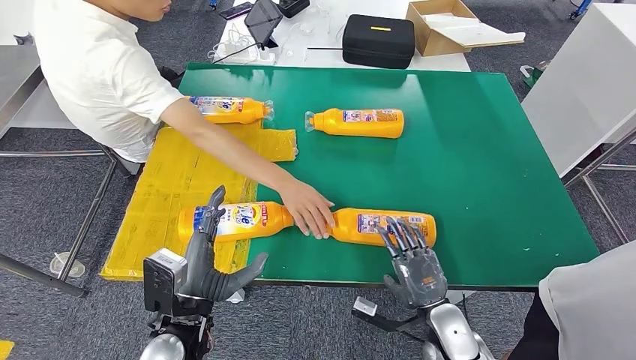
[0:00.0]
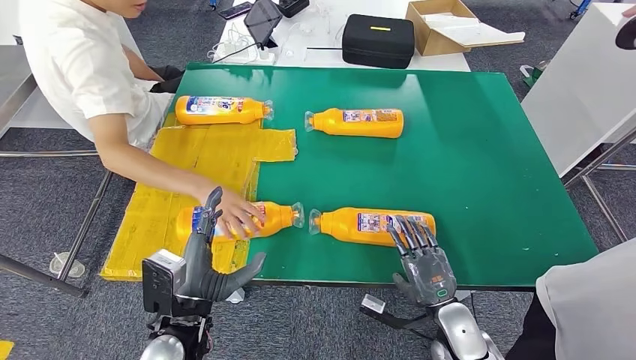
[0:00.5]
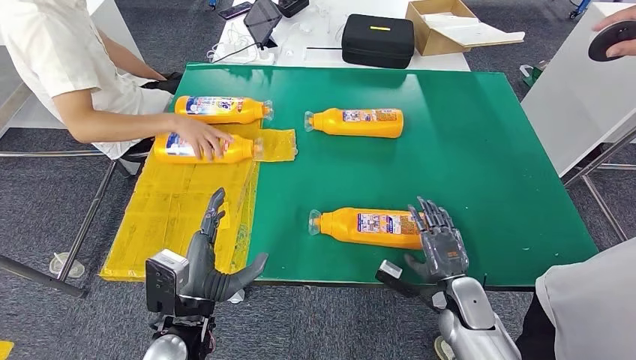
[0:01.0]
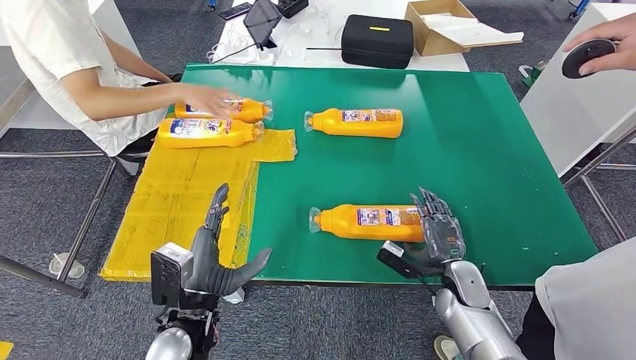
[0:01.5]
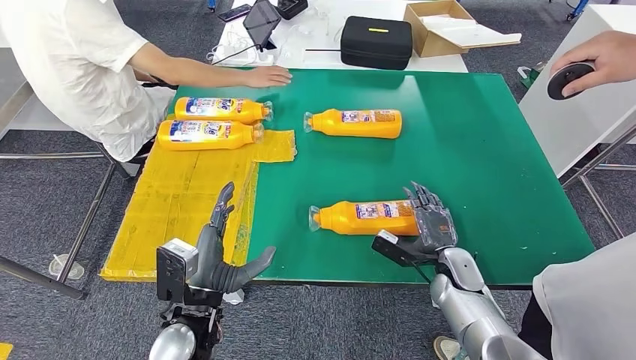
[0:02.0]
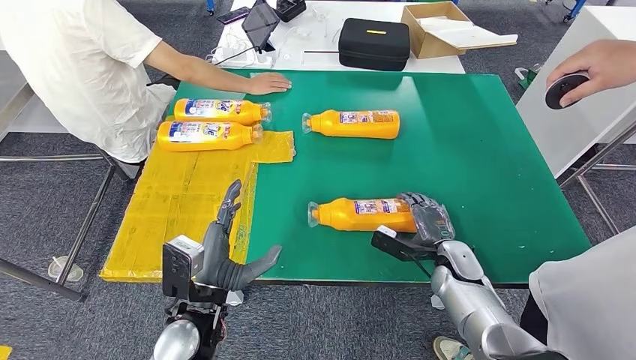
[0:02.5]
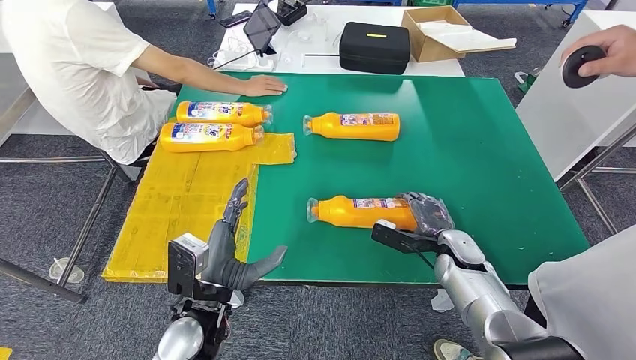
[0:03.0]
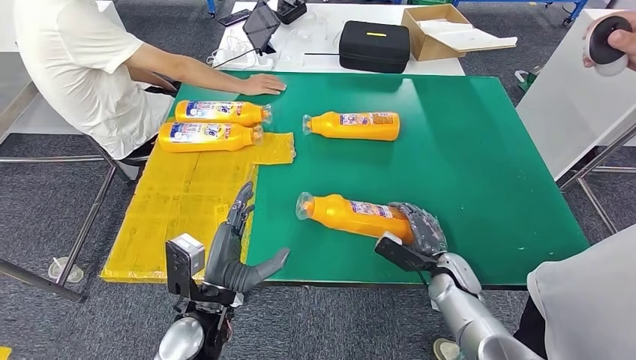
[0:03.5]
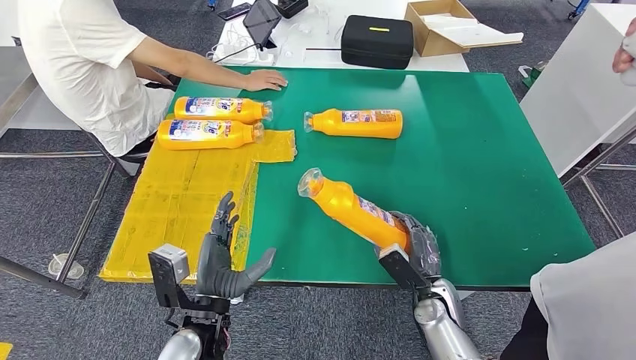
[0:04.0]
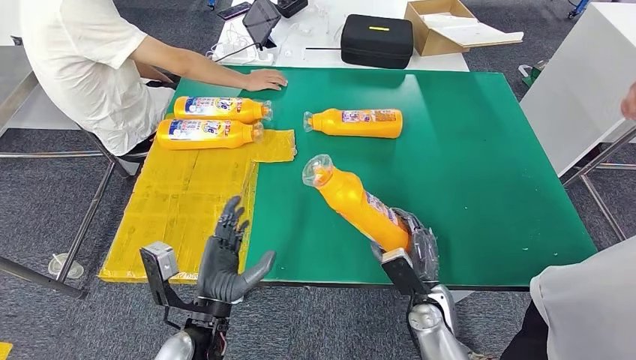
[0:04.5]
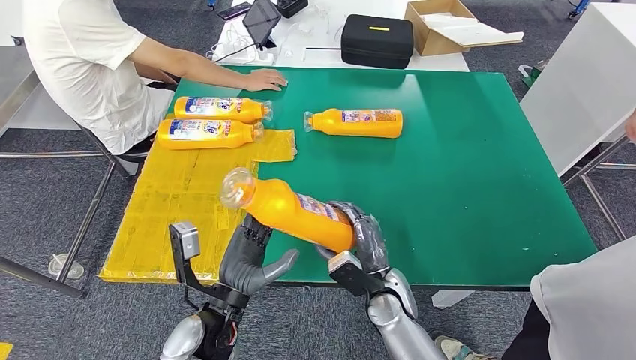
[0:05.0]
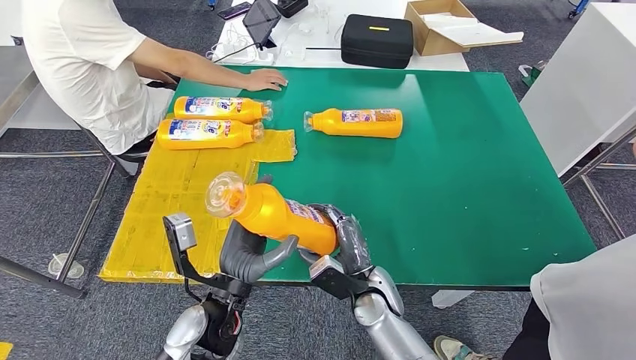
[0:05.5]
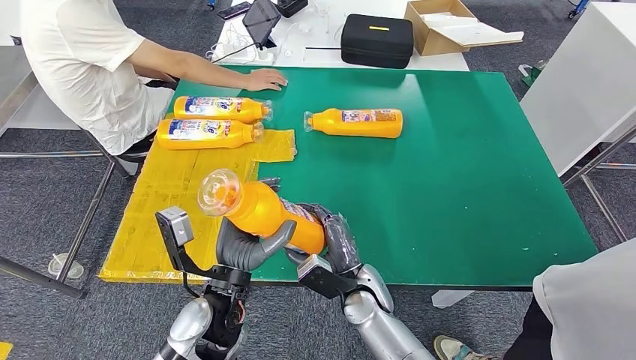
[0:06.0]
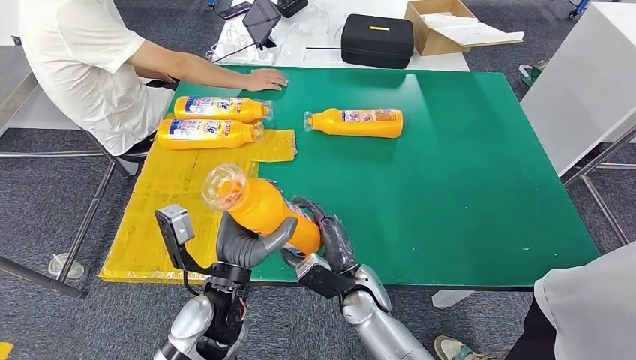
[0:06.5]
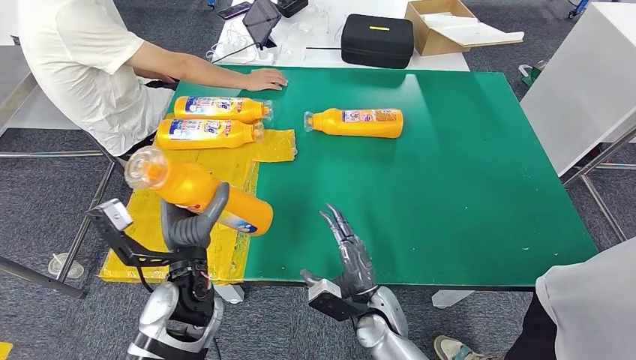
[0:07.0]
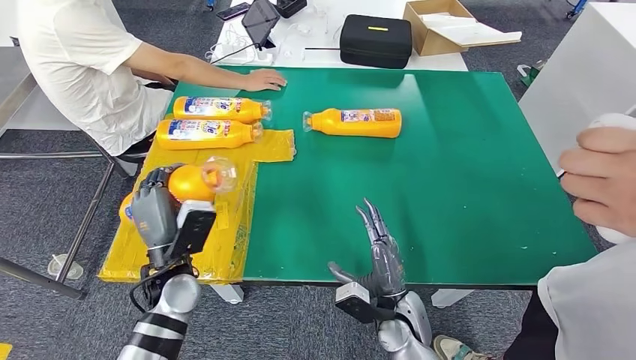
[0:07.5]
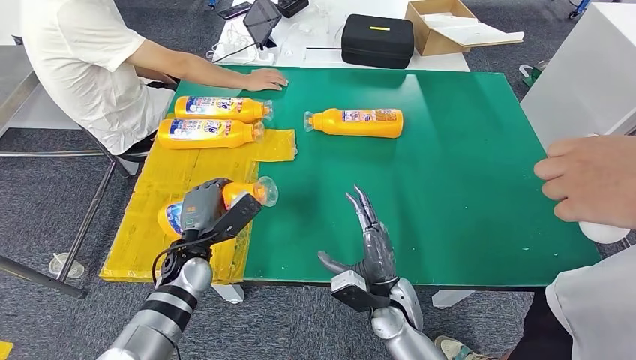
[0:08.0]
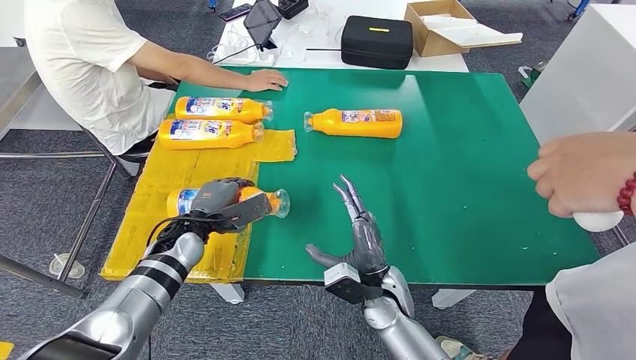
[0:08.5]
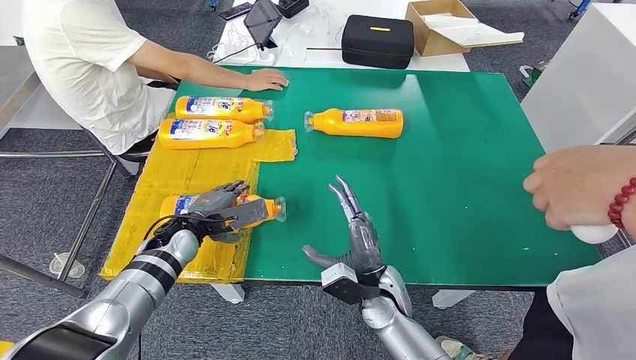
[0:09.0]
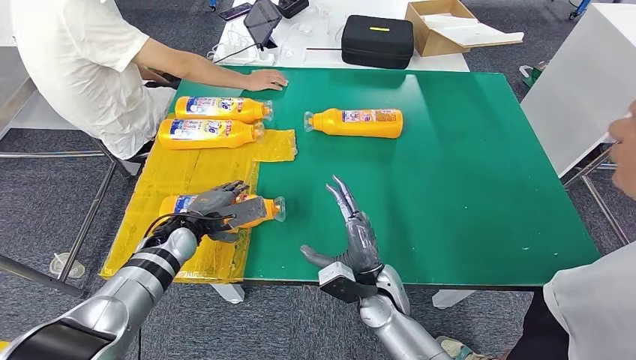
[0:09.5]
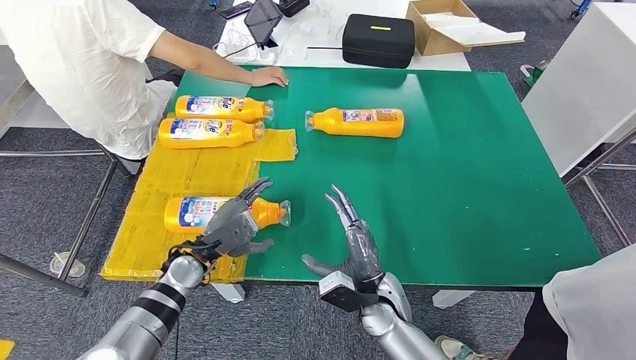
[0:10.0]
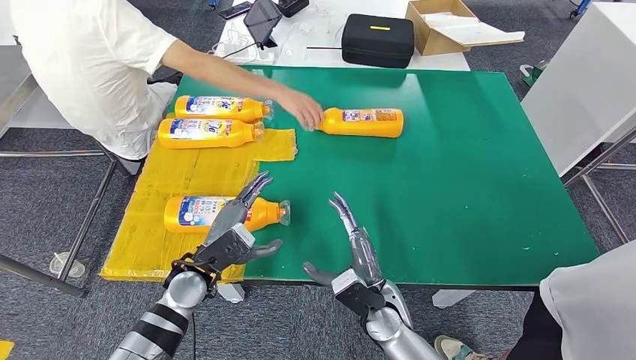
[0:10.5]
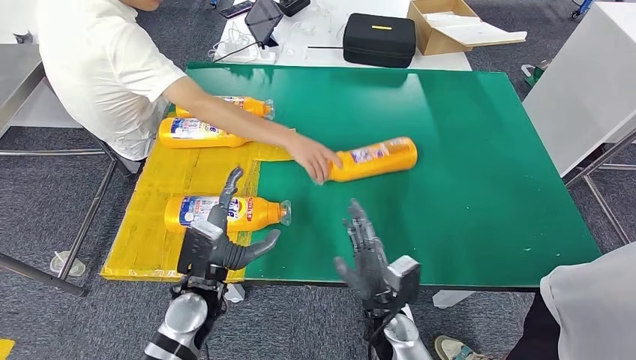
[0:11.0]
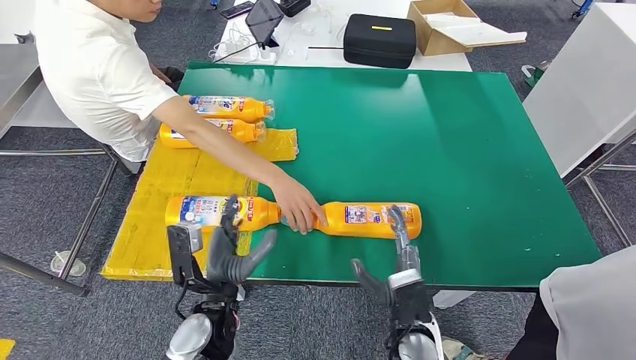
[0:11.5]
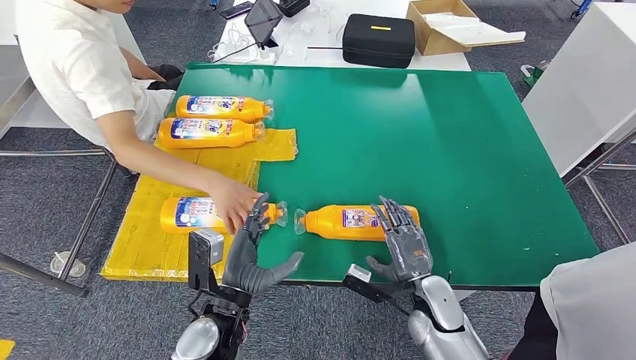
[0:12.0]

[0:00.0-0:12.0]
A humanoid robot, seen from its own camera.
Step, 0:00.0 to 0:04.0: Pick up the bottle from the table.
Step, 0:04.5 to 0:10.5: Flip the bottle to face forward.
0:02.0 to 0:04.0: The right hand goes some 10 cm backward and to the left.
0:04.0 to 0:06.0: The right hand shifts about 15 cm to the left. The left hand shifts by roughly 5 cm.
0:06.0 to 0:08.0: The left hand heads forward, to the left and downward, covering approximately 15 cm, while the right hand travels to the right by approximately 5 cm.

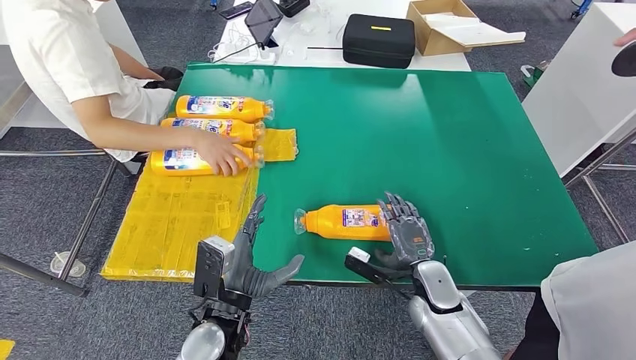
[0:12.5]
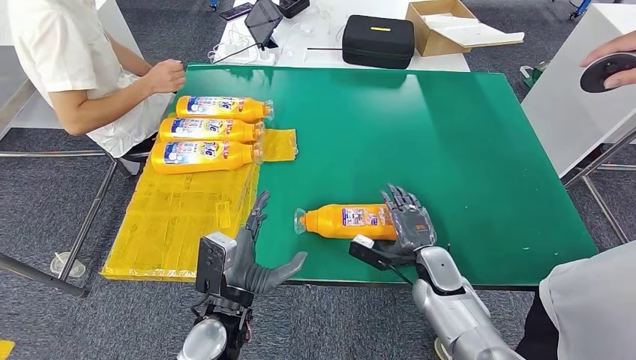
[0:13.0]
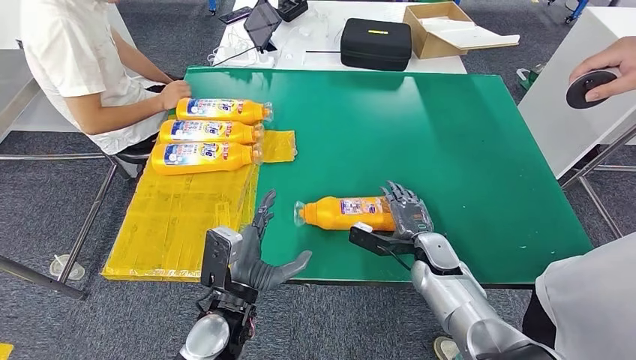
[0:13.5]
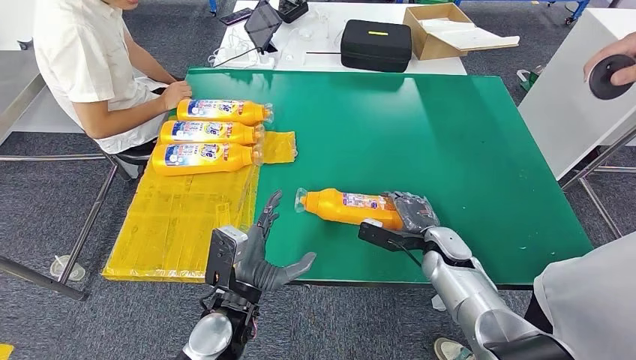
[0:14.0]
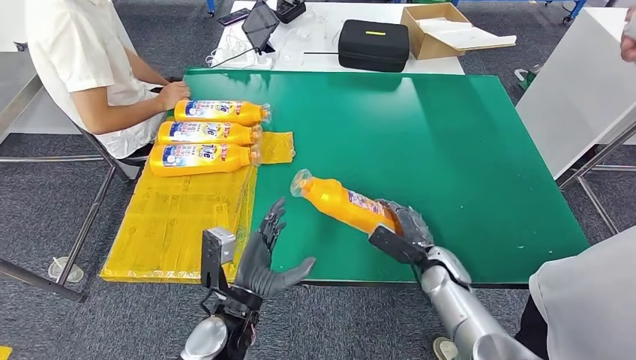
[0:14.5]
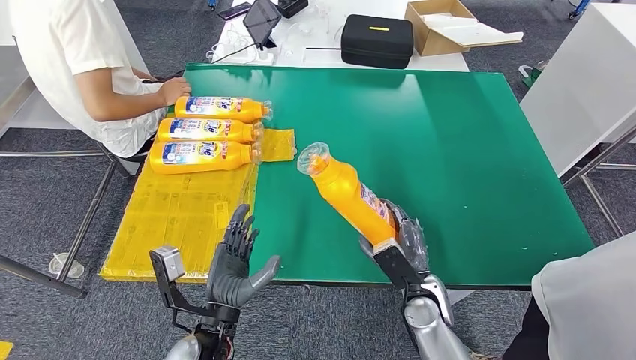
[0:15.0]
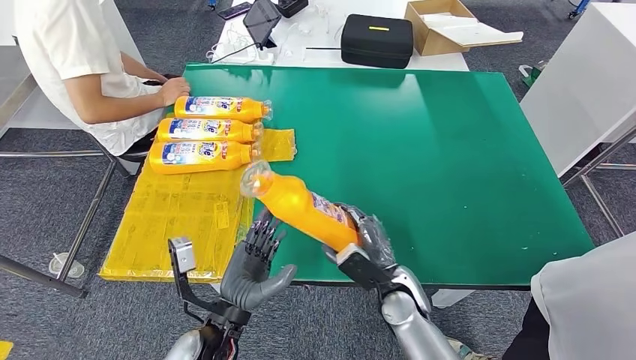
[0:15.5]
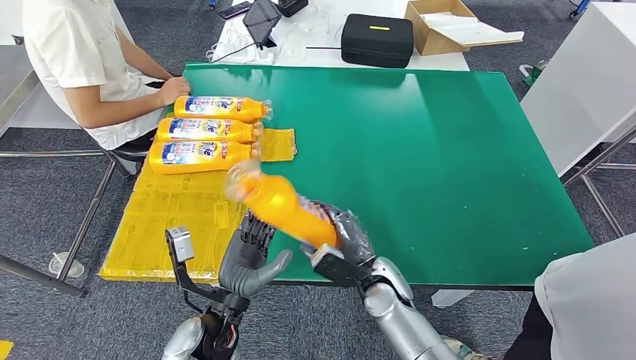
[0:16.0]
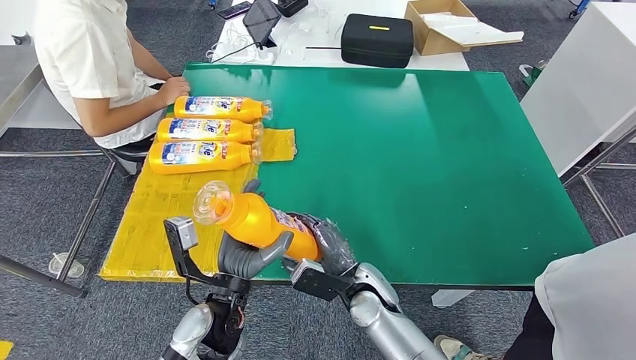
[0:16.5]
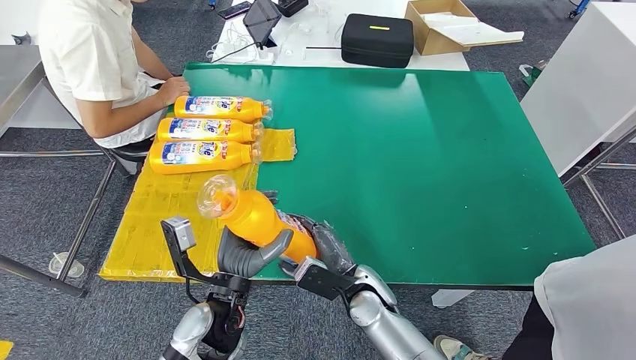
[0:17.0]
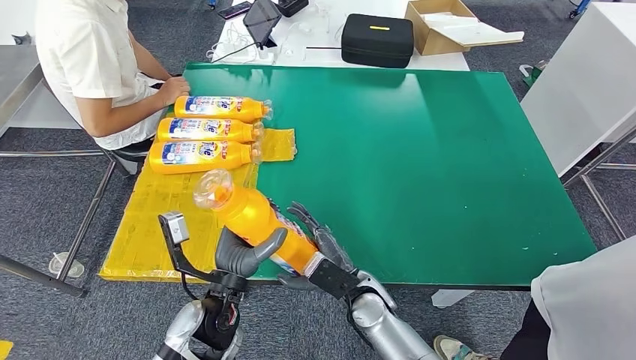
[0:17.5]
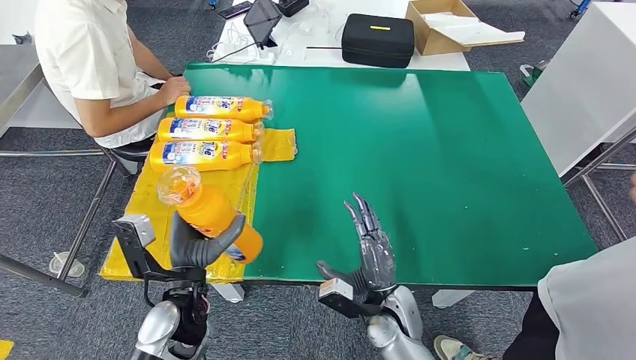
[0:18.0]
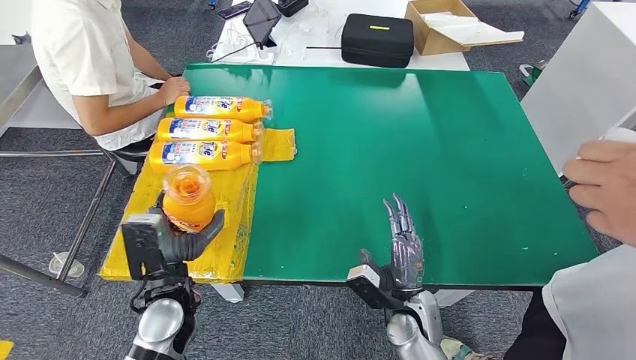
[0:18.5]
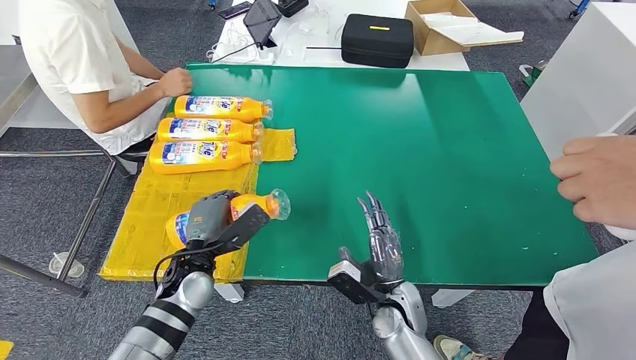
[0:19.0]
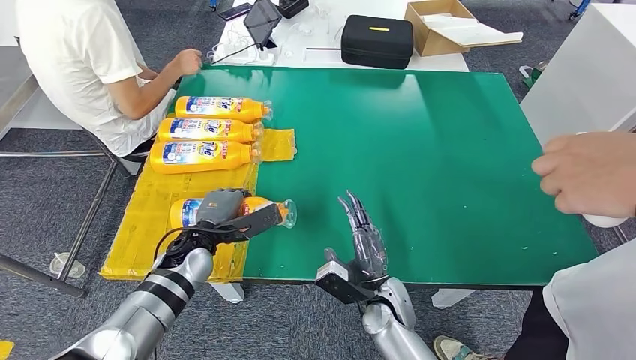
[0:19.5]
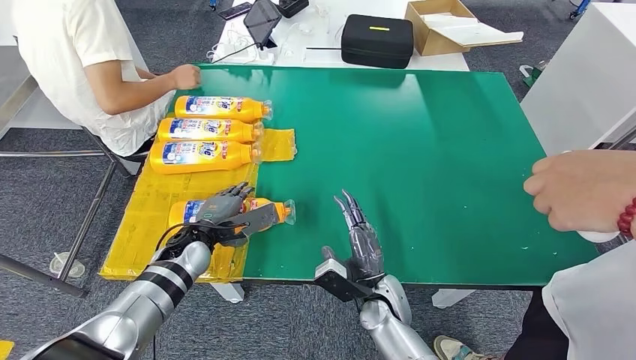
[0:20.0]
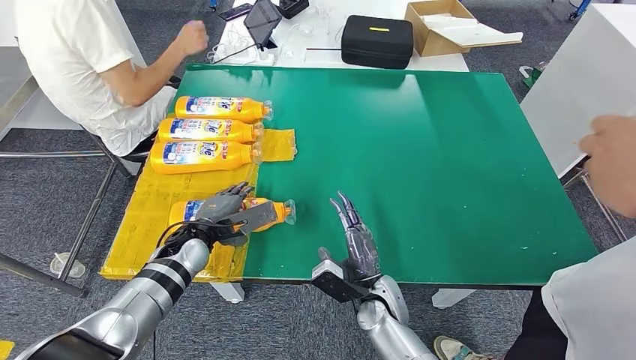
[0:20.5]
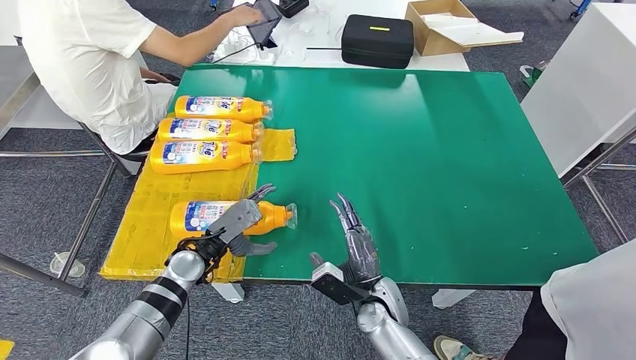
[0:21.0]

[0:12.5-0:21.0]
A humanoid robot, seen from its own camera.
Step, 0:12.5 to 0:15.0: Pick up the bottle from the table.
Step, 0:15.5 to 0:21.0: Flip the bottle to face forward.
0:16.5 to 0:19.0: The right hand heads to the right, covering roughly 5 cm. The left hand travels forward and to the left by approximately 10 cm.
